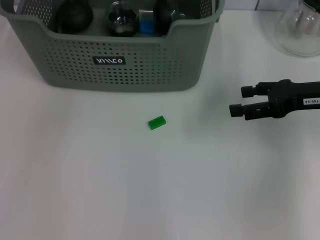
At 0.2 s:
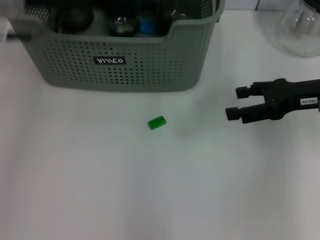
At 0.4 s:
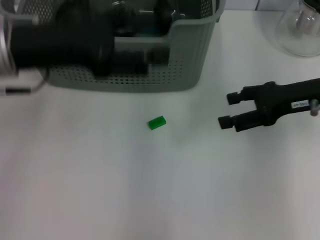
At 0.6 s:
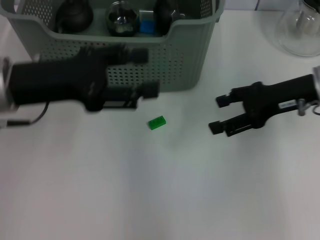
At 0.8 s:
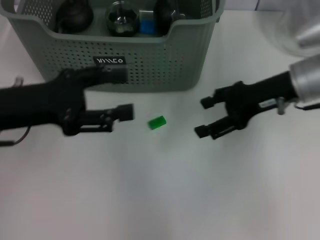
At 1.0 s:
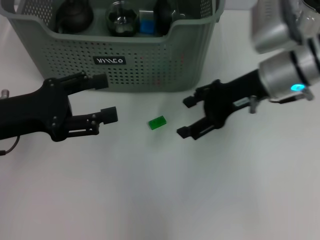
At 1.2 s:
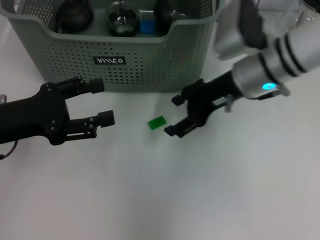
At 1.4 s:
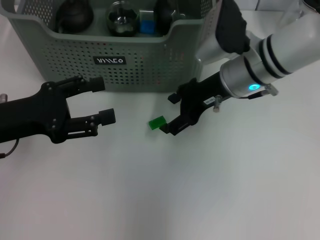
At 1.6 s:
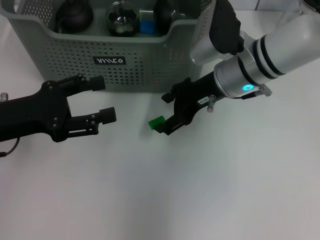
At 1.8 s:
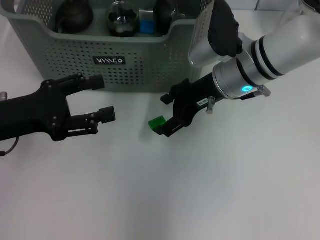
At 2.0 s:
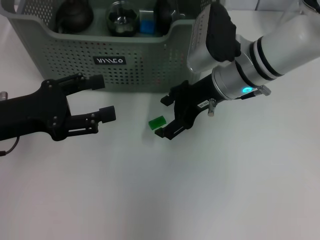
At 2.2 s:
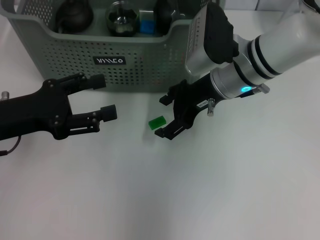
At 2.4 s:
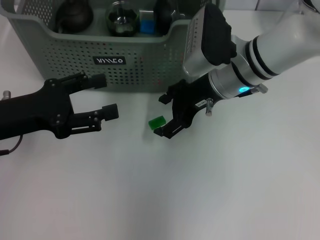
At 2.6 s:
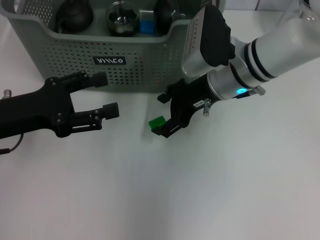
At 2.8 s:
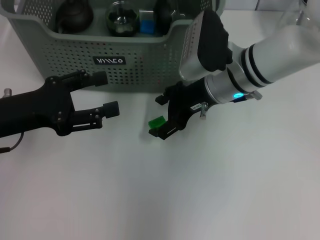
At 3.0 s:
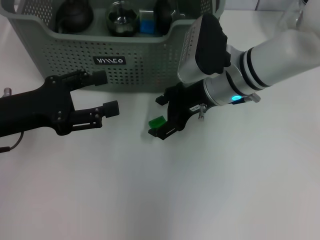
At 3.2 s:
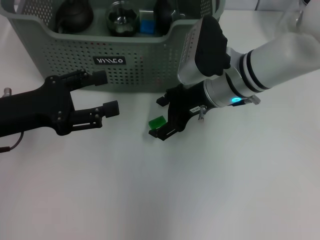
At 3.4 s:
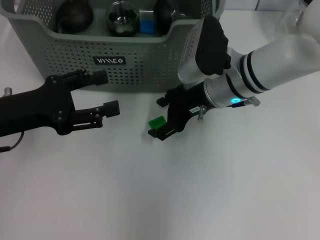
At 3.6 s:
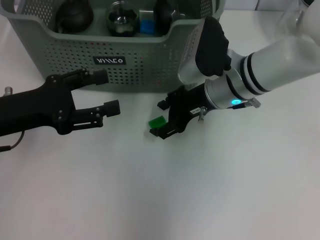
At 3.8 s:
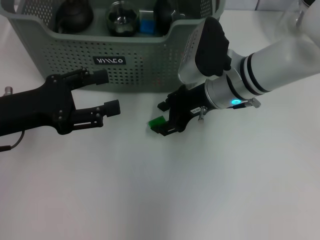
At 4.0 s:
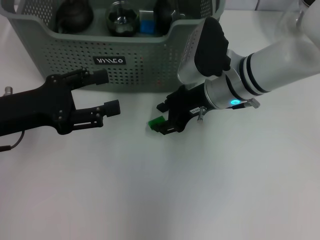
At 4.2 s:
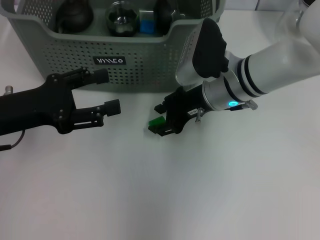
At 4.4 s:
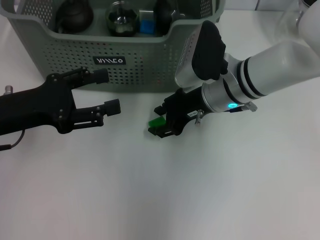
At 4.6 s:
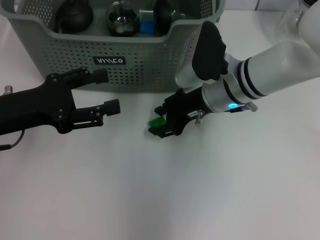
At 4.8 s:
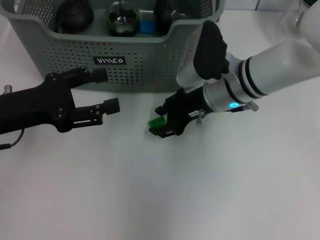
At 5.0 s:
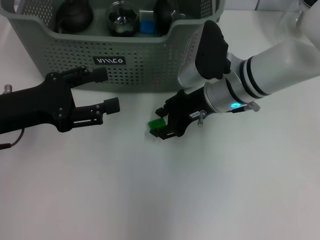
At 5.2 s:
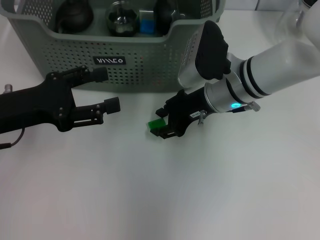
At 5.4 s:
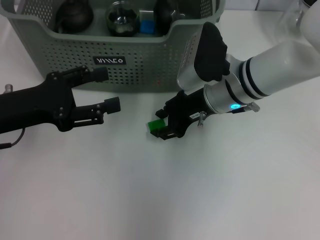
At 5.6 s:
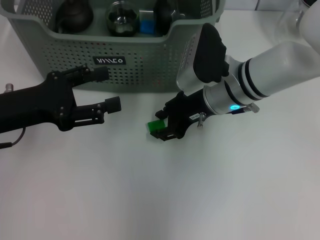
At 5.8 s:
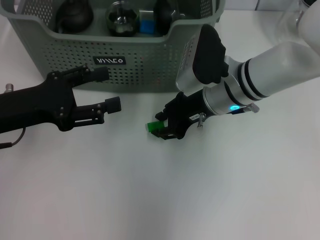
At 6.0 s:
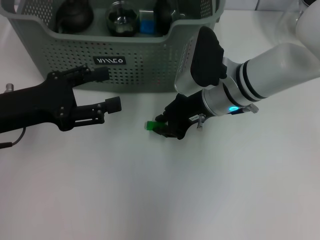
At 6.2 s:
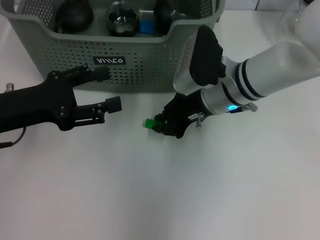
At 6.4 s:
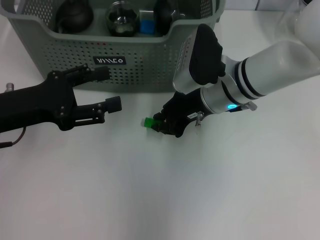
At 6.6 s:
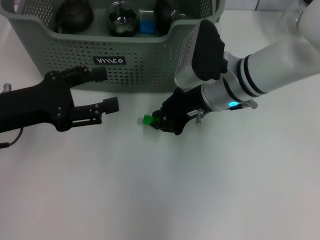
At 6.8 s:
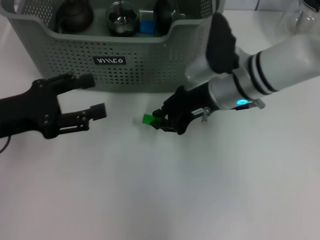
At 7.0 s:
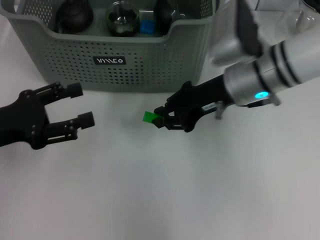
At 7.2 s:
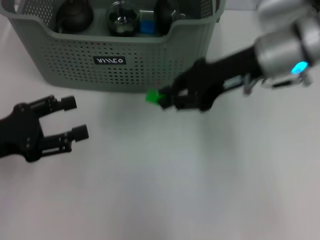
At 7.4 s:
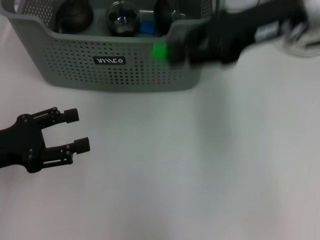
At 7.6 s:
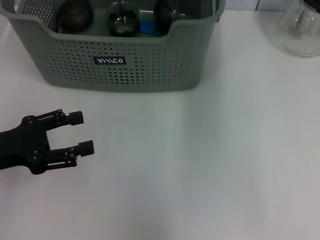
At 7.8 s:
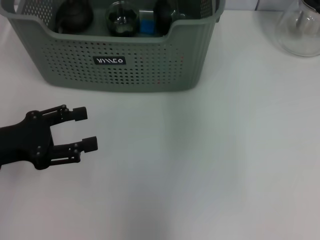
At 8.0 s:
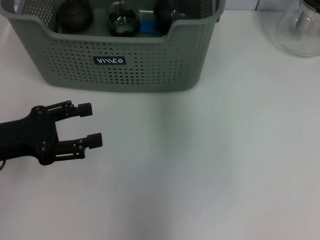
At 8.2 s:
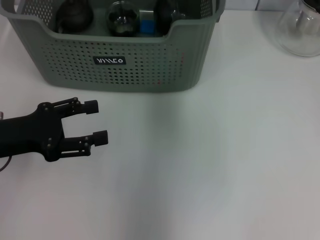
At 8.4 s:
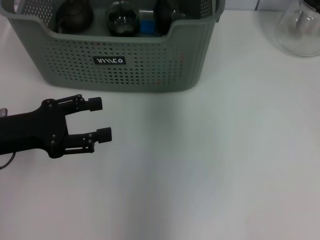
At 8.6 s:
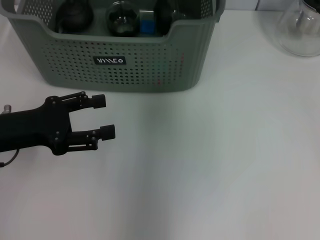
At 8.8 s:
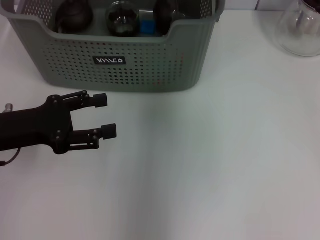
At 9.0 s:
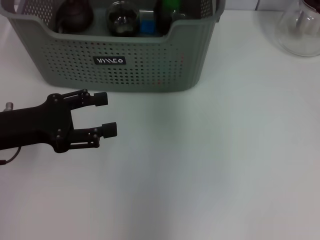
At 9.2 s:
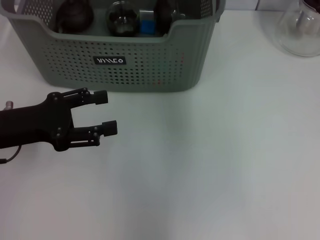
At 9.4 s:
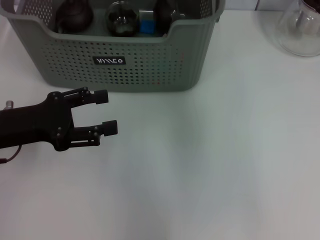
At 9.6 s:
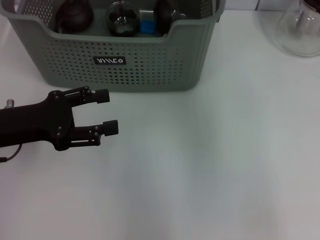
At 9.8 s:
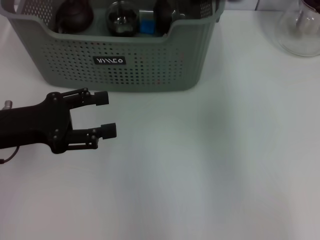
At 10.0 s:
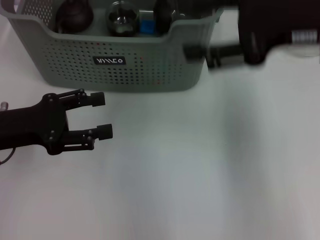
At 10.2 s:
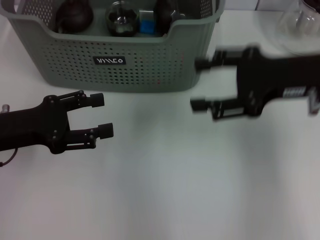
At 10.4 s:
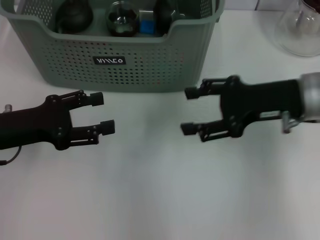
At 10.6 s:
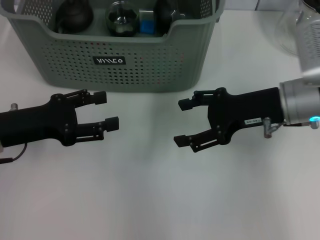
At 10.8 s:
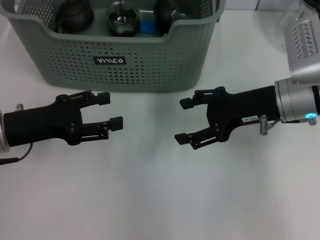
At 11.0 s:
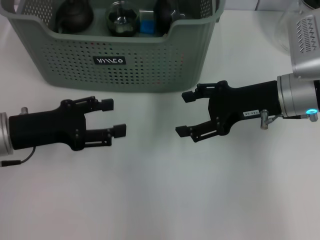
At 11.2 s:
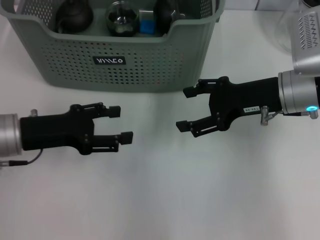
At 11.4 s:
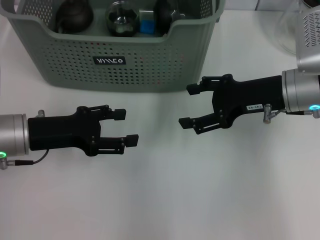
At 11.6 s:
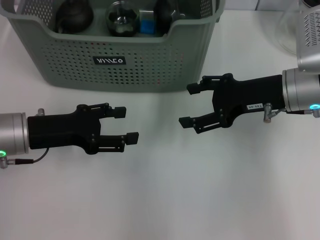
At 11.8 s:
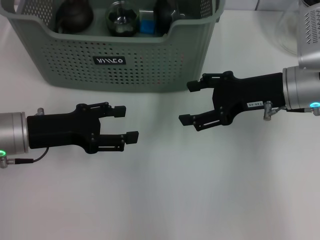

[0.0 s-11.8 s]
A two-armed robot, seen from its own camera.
Task of the whole recording: pick up the teacup on the table and place it into the storage bin, pick up the block on the table and place it into the storage bin.
Step, 0.0 to 6.2 s: Grasp the green block with right gripper.
Step, 6.4 to 9.0 s: Place the green block in the storage box with right gripper.
0.0 to 1.4 s: The left gripper heads downward, backward and to the left, covering about 25 cm, while the right gripper moves to the left, some 15 cm.
1.4 to 3.0 s: The grippers make only small movements.
3.0 to 4.4 s: Both grippers stay about where they are.
4.4 to 6.0 s: The two grippers keep their place.
6.0 to 7.4 s: The left gripper shifts by about 5 cm. Meanwhile the right gripper goes roughly 20 cm upward and to the right.
7.4 to 8.8 s: The right gripper travels forward and to the left by about 15 cm.
8.8 to 10.4 s: The right gripper heads backward, to the right and downward, covering roughly 20 cm, and opens up.
10.4 to 11.8 s: The grippers make only small movements.
